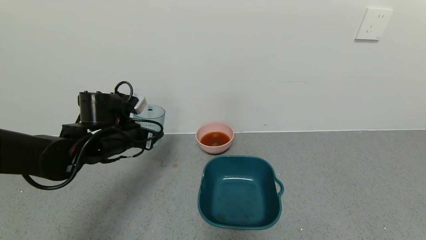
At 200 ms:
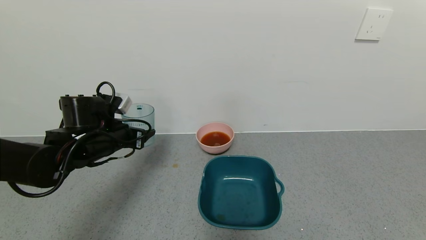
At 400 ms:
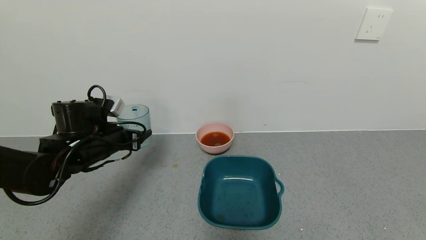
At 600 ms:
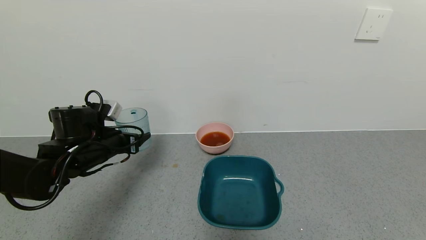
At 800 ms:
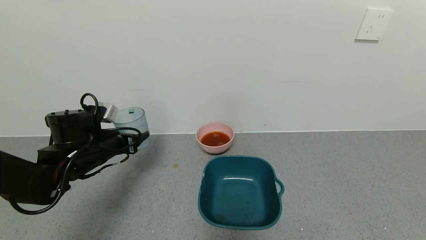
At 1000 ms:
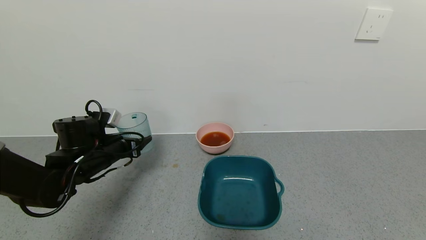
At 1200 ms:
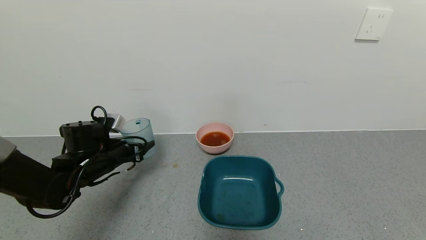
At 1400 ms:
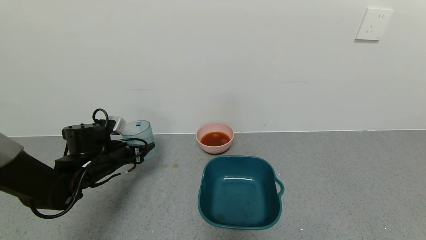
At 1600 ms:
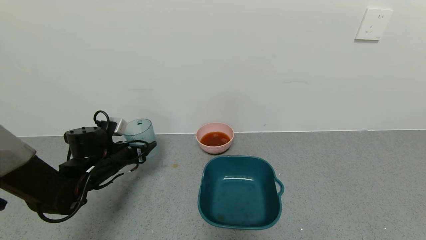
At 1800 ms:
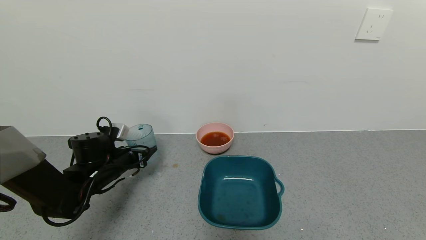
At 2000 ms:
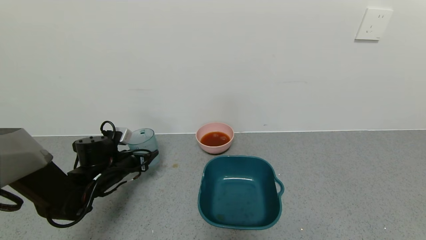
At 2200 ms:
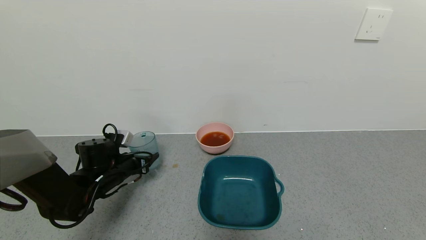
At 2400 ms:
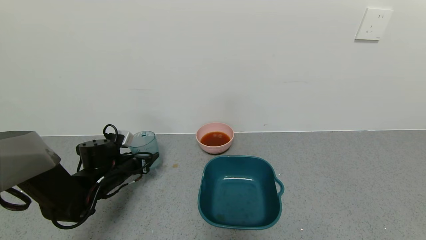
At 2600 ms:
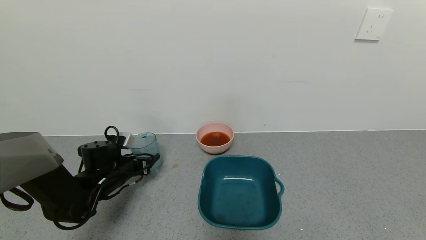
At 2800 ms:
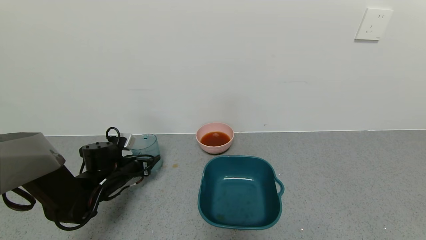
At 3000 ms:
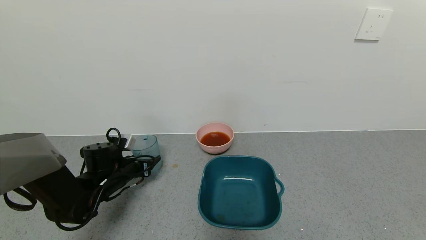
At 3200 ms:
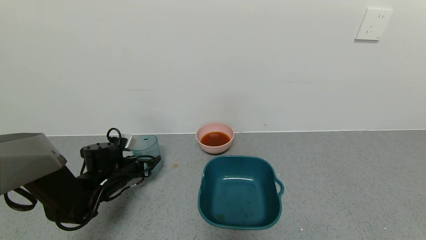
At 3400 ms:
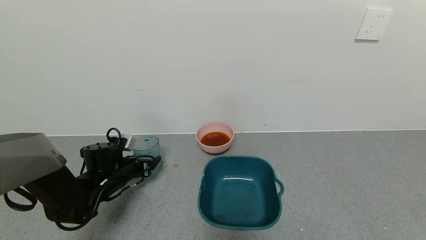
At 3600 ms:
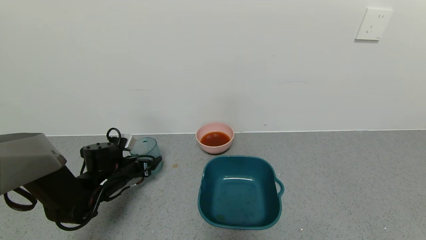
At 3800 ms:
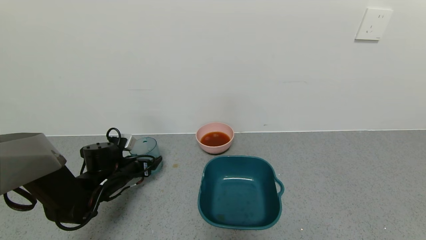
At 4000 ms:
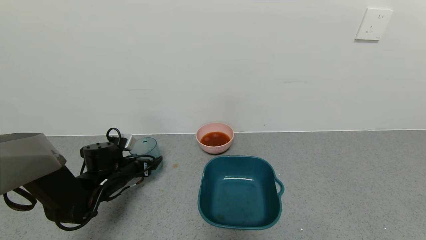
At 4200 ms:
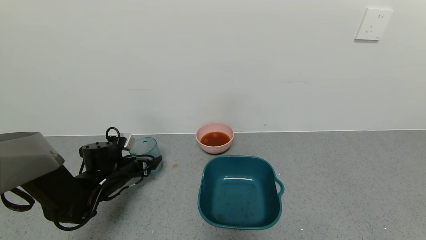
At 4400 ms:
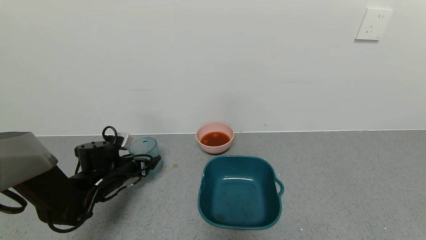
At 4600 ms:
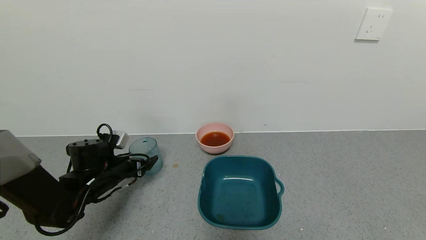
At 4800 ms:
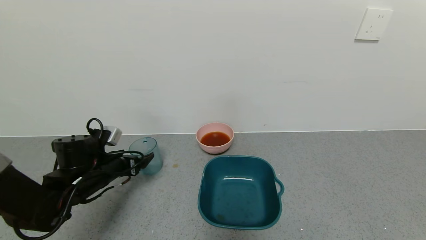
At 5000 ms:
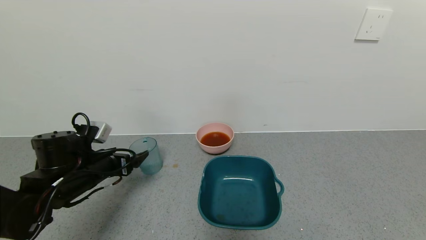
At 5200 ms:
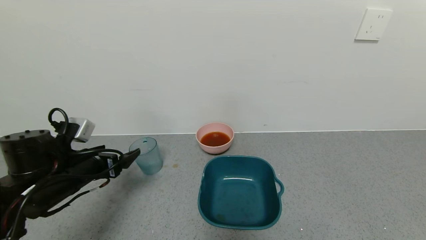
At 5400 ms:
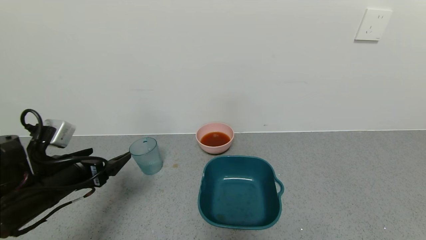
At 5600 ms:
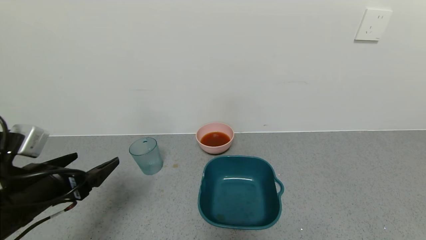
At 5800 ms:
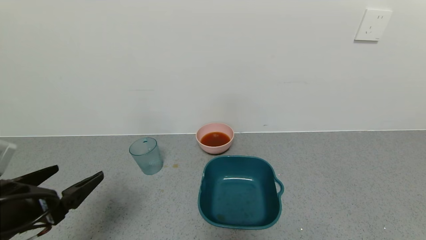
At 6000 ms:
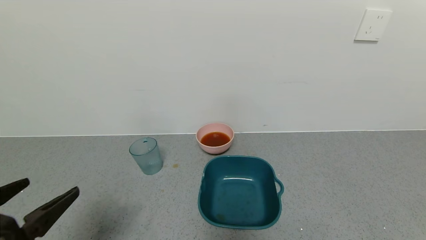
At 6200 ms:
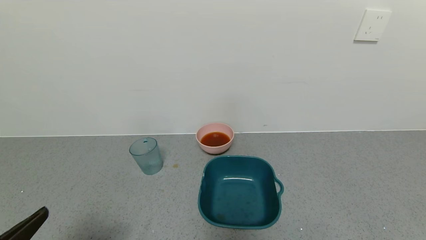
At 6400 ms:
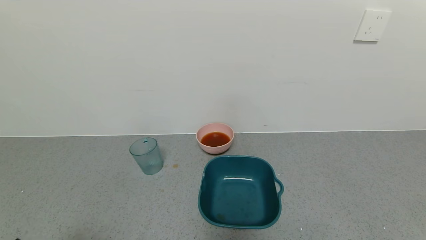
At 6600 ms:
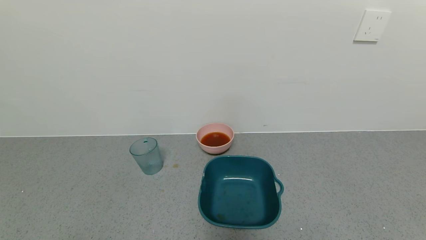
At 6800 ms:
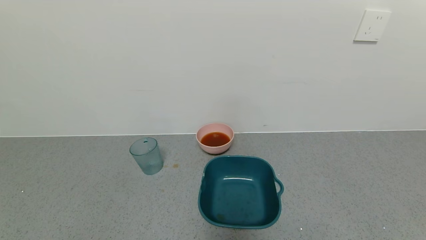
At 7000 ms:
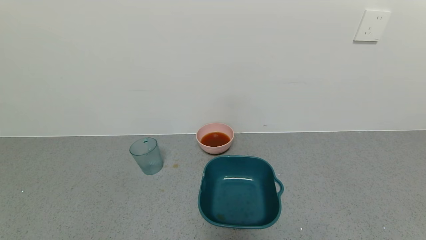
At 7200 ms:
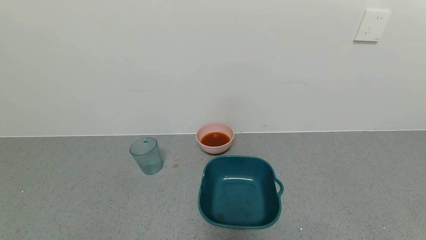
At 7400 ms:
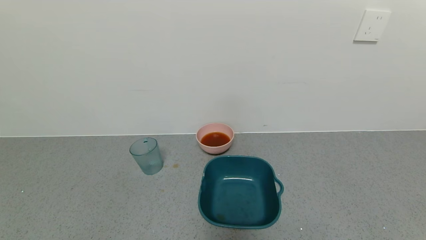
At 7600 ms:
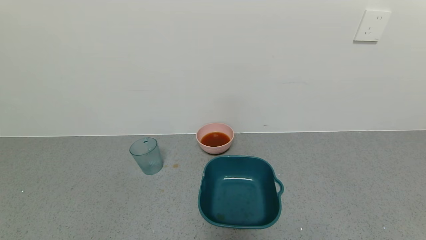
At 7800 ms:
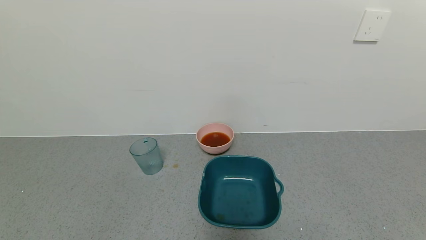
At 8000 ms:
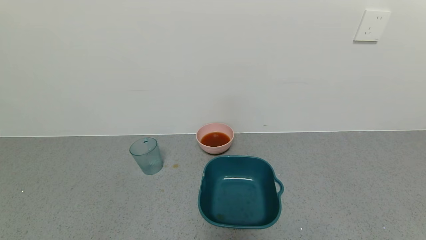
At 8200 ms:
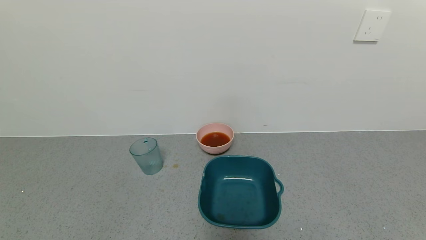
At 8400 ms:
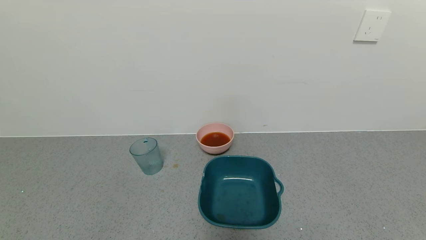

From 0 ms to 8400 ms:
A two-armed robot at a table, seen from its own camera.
Task of the whole recording: use a gripper to pick up the cup and pour the liquid into a bowl or tray.
Step, from 0 ms to 4000 ms: Place blue cup with tea on the table with left gripper.
From 0 ms to 1400 ms: The left gripper shifts some 10 cm downward and to the left.
From 1400 ms to 2800 ms: The left gripper shifts some 5 cm downward.
From 4200 ms to 5600 ms: The left gripper shifts some 20 cm backward and upward.
From 5600 ms to 7000 ms: The left gripper travels backward by some 20 cm.

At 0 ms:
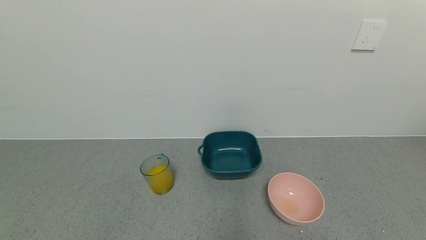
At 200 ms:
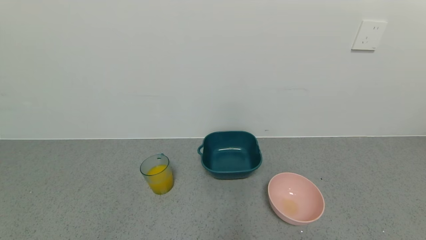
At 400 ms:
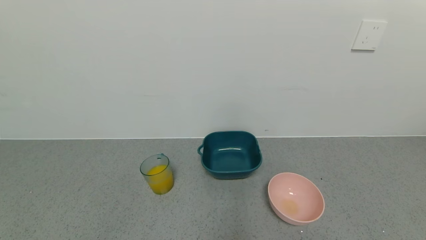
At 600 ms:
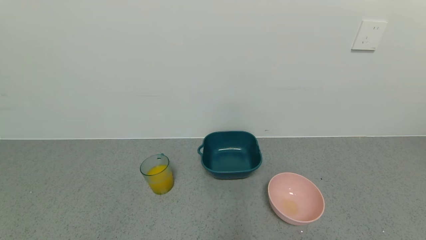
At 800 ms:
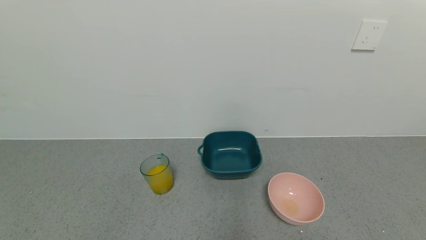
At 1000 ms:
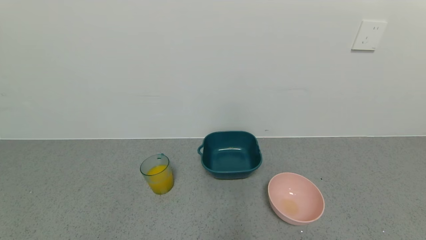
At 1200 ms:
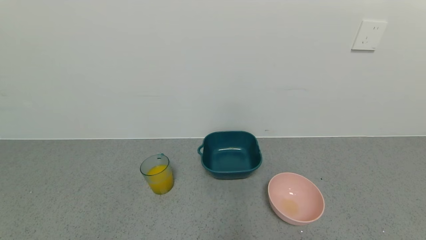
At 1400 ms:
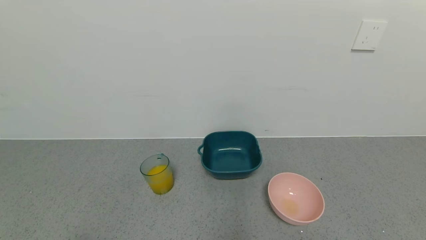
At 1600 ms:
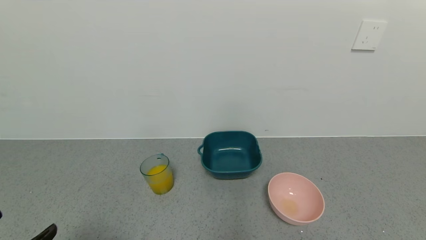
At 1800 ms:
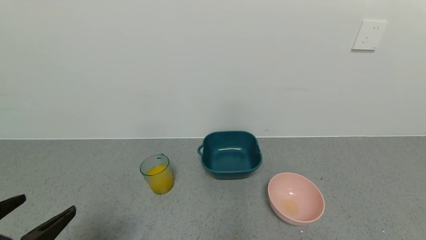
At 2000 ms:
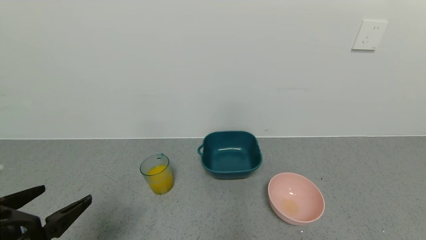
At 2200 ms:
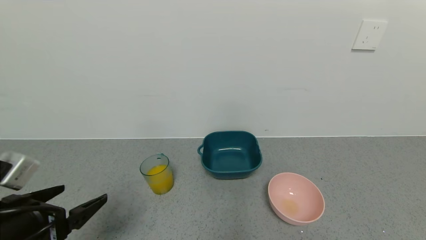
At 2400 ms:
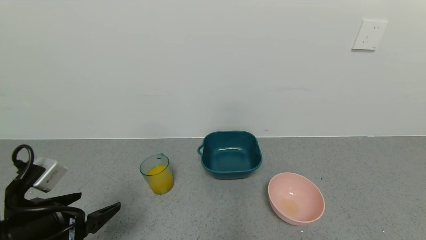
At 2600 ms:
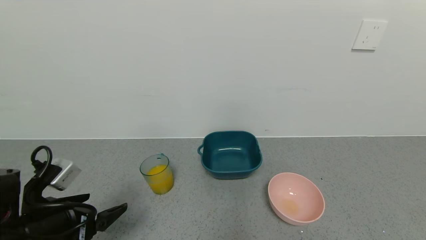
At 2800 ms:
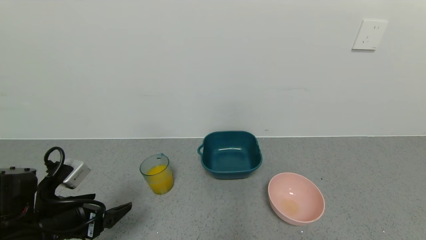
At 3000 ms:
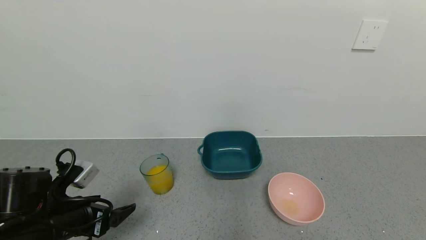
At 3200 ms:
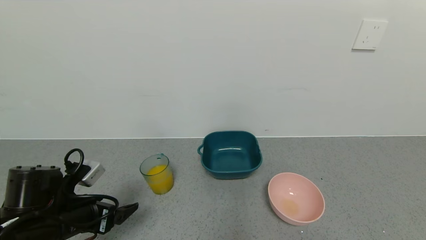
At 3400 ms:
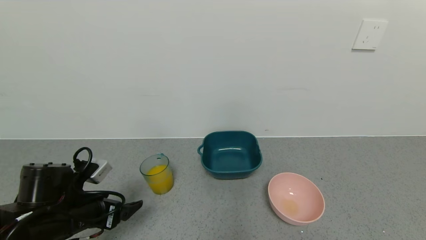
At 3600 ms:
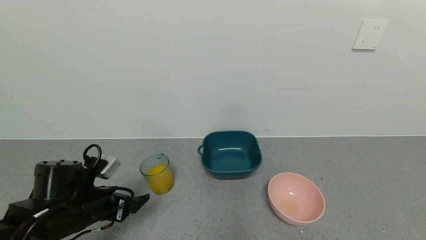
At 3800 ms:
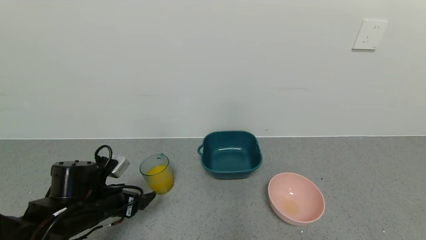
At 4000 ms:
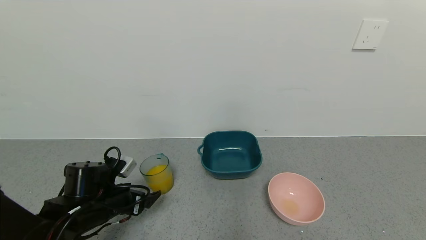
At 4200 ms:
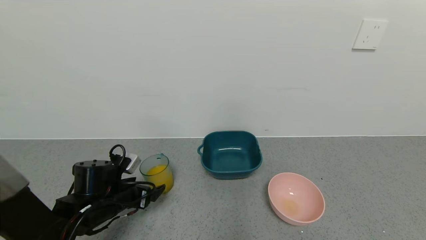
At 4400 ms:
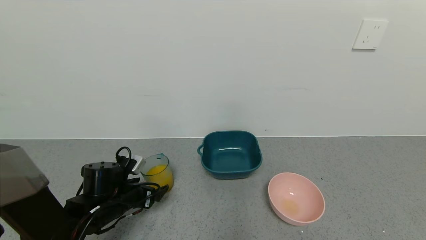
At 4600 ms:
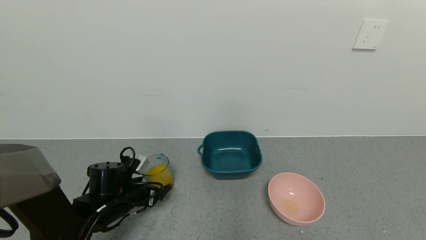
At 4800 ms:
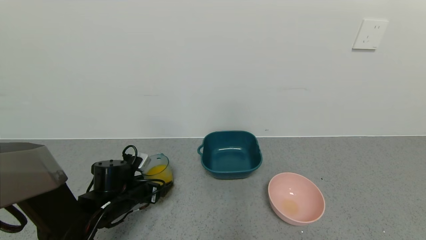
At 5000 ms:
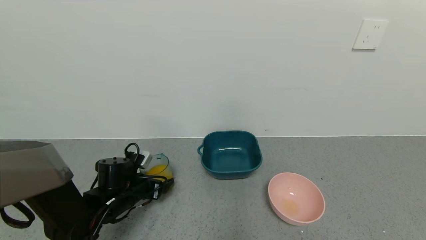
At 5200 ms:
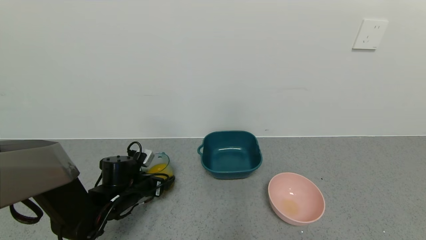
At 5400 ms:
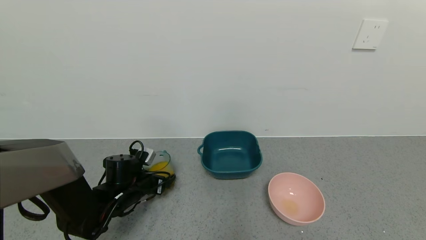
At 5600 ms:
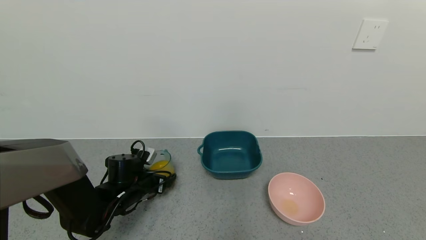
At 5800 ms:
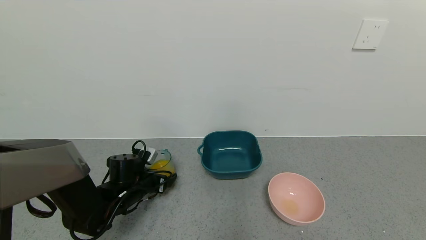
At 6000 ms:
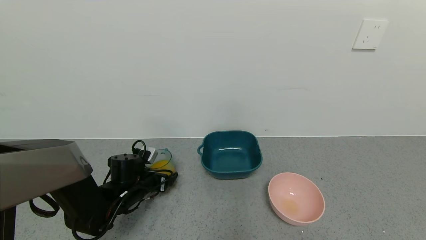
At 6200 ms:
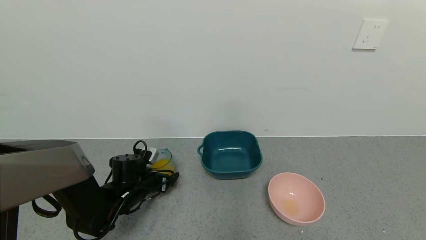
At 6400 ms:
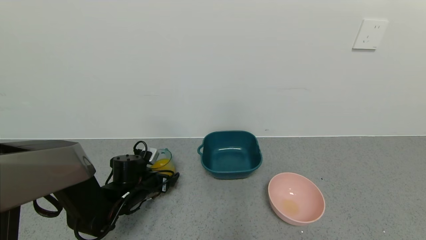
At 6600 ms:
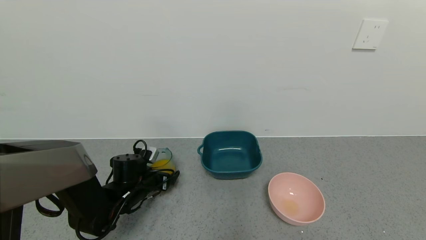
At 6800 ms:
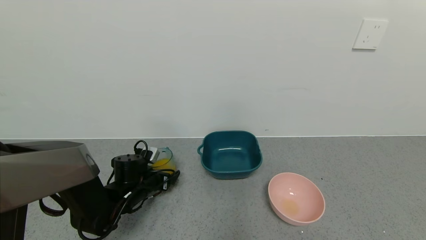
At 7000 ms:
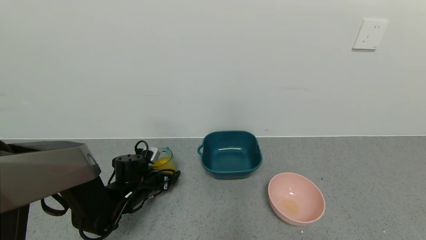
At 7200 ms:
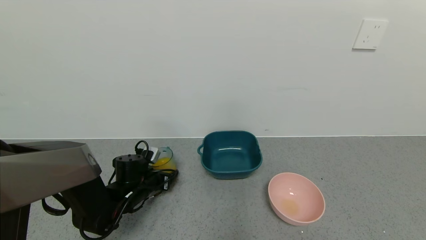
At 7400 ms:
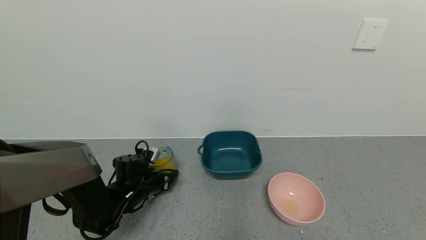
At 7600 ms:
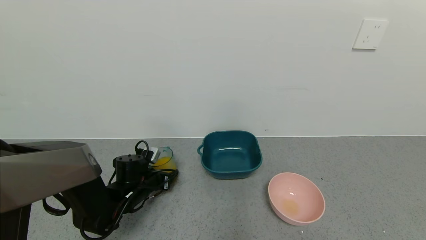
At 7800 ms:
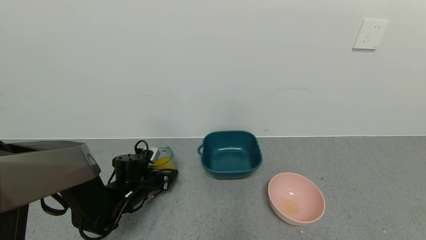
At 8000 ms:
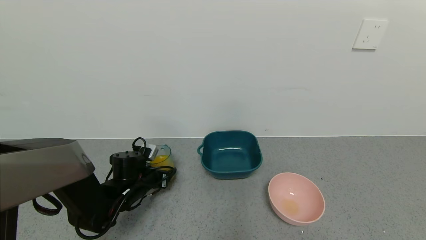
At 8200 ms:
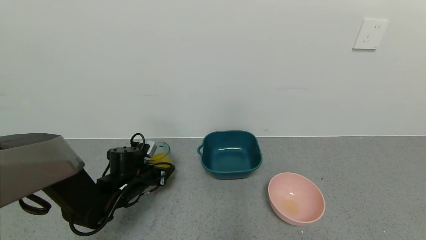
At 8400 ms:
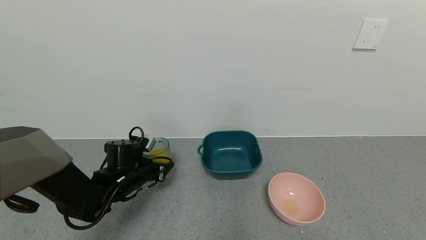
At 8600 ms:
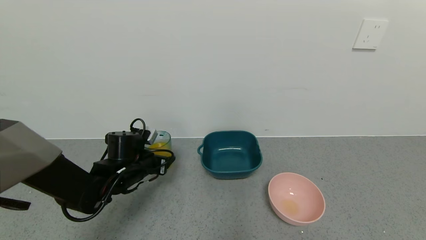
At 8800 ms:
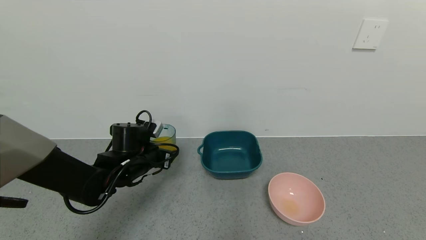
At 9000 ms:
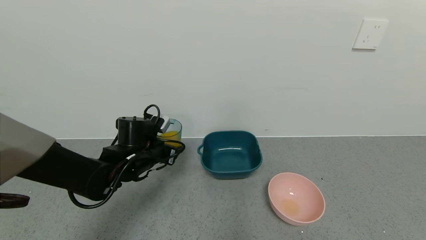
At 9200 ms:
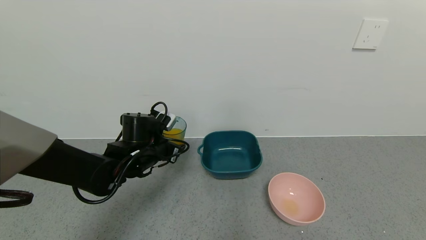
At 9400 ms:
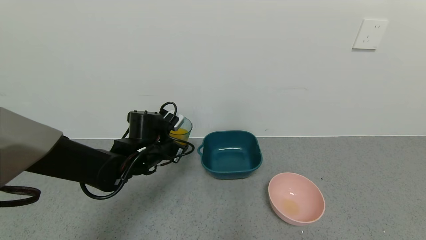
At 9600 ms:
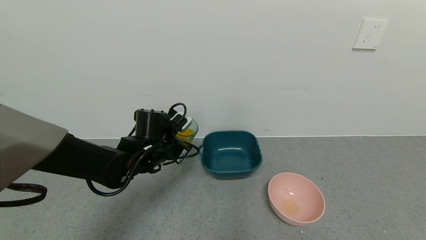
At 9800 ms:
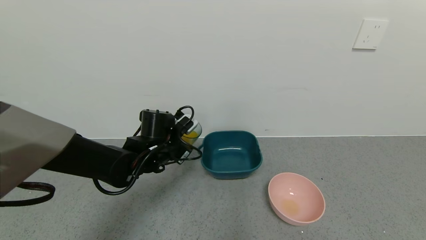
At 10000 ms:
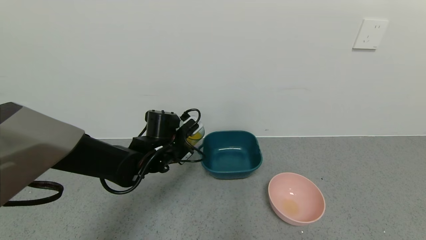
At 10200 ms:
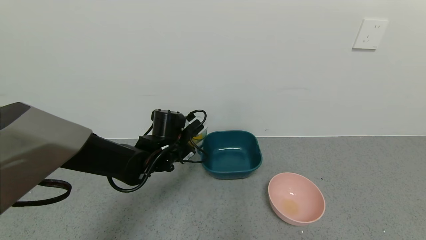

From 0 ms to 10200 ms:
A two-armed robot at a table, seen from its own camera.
Task of the whole recording: use a gripper to pick up the cup and pour the liquid into a bowl or tray.
Step, from 0 ms to 7400 ms: Grasp the glass of orange juice with the left gripper.
From 1400 ms to 3000 ms: The left gripper goes about 20 cm forward.
From 3000 ms to 4400 ms: The left gripper goes roughly 10 cm forward and downward.
From 4400 ms to 5800 ms: The left gripper travels forward by about 5 cm.
From 5800 ms to 7200 ms: The left gripper closes up.
From 7200 ms to 8800 ms: The left gripper heads upward, covering roughly 10 cm.
From 8800 ms to 10200 ms: The left gripper travels to the right by roughly 5 cm.